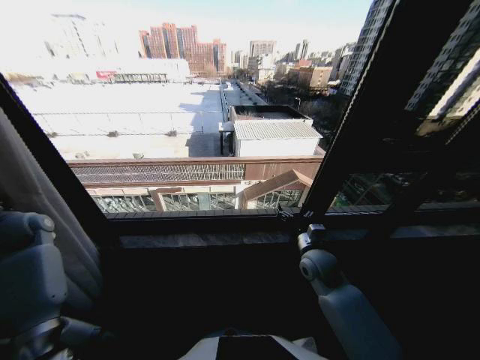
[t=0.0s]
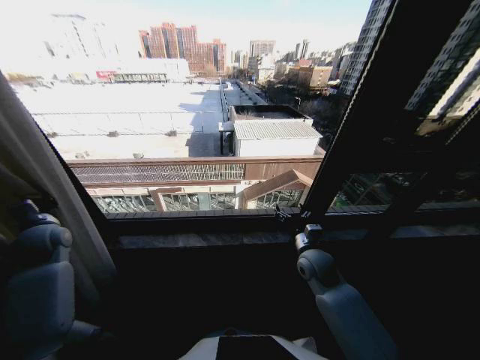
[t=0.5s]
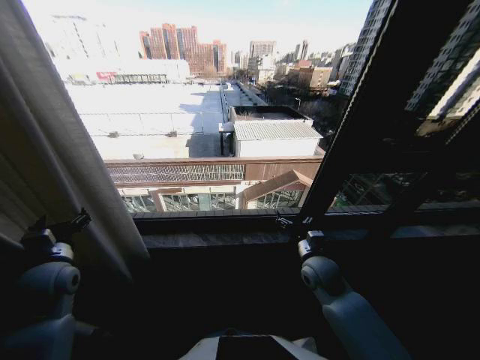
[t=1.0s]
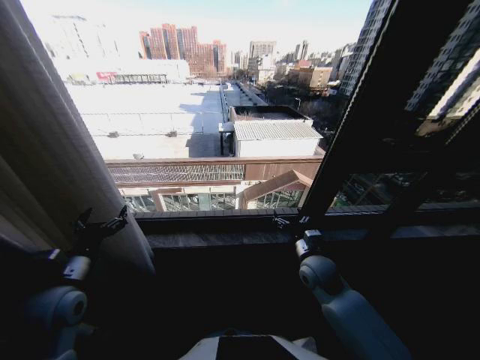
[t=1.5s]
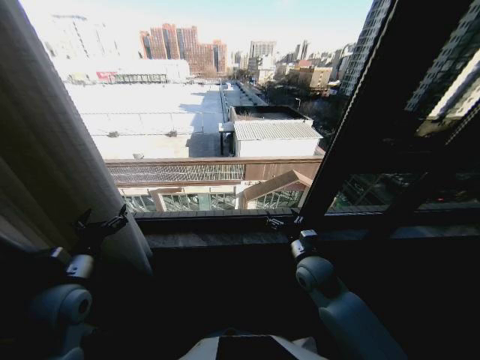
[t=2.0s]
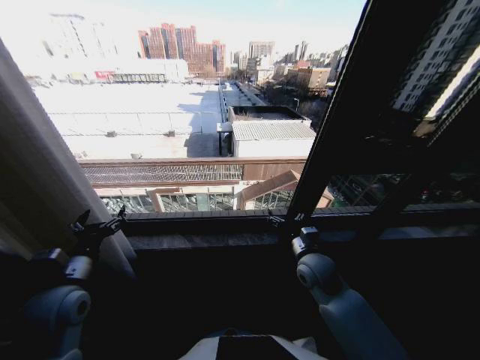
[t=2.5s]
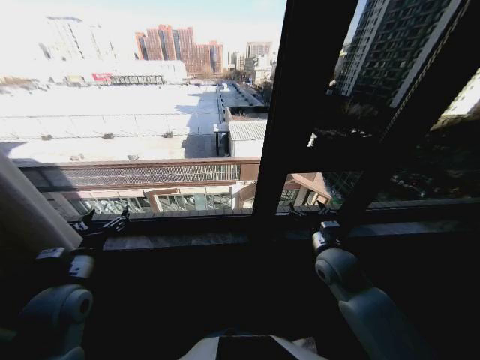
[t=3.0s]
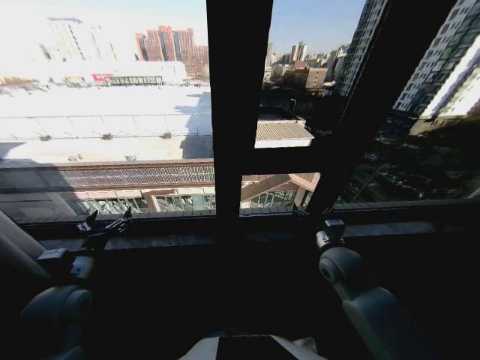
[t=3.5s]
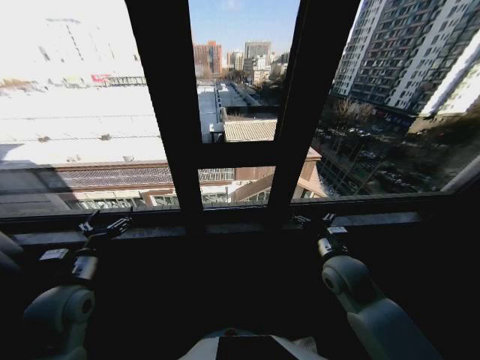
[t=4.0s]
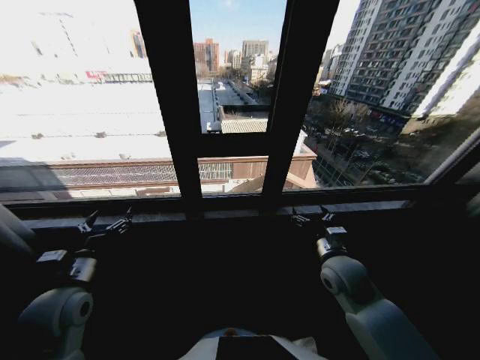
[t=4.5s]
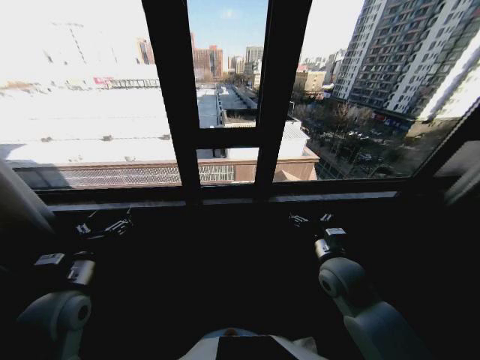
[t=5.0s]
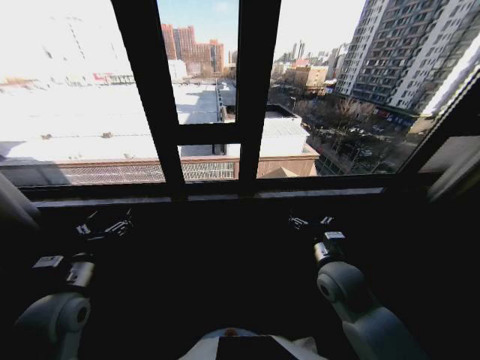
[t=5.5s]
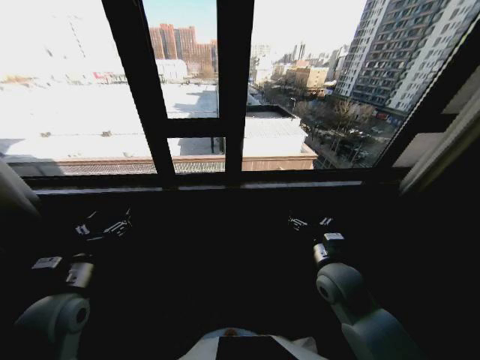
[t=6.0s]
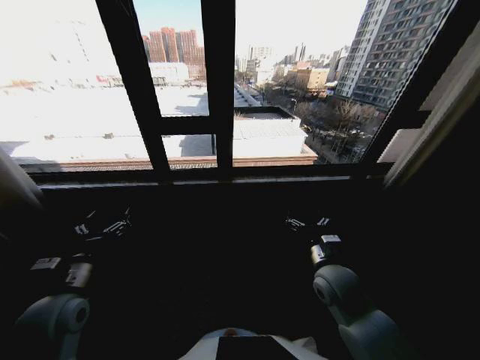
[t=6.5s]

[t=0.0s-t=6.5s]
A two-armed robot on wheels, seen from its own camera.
Task of the whole recording: Open the curtains by pulling them apart, changing their state from closed to fully open.
t=0.0s to t=2.0s: The left gripper is displaced to the right and backward by about 30 cm, and opens.
t=2.0s to t=4.5s: The right gripper shifts by approximately 5 cm.

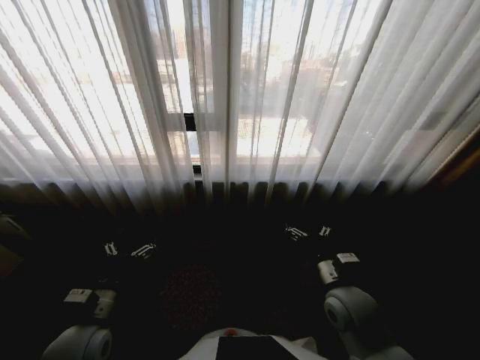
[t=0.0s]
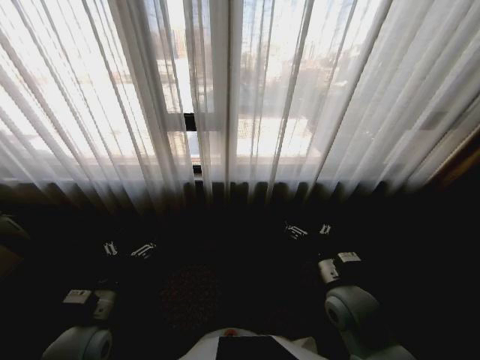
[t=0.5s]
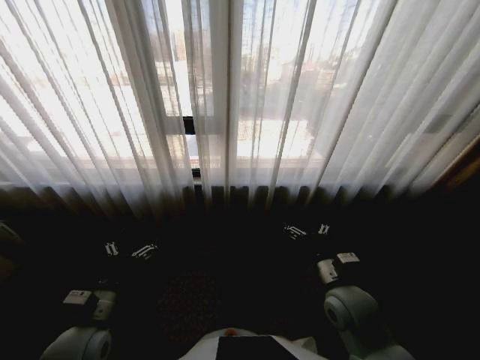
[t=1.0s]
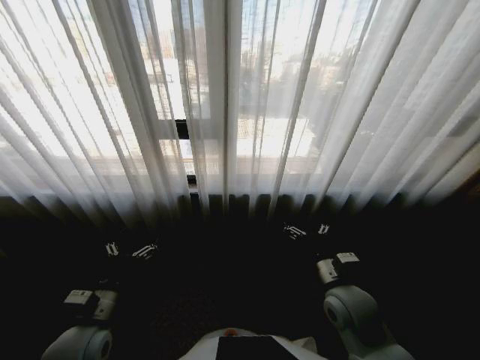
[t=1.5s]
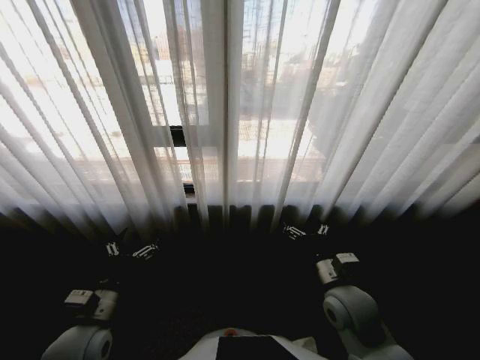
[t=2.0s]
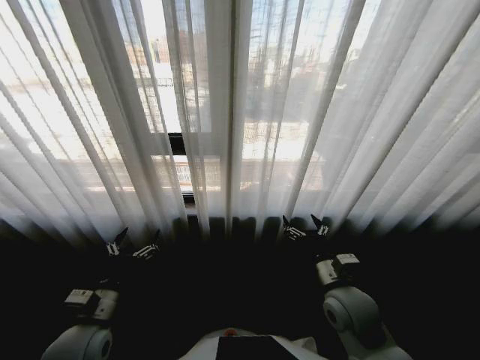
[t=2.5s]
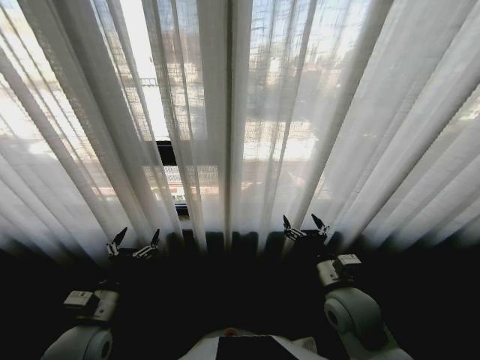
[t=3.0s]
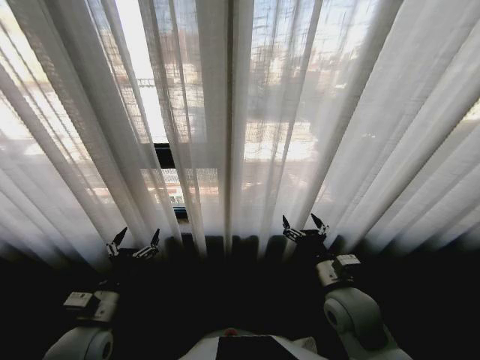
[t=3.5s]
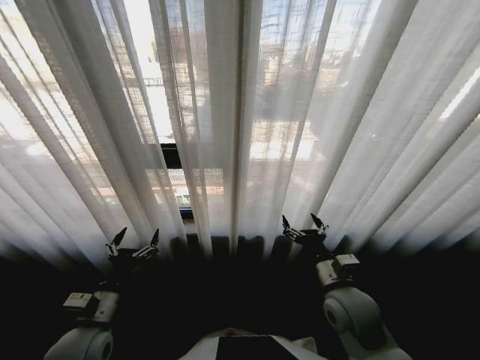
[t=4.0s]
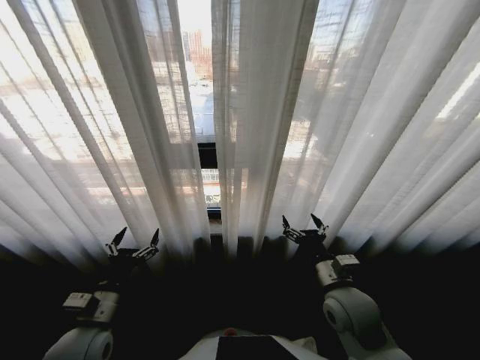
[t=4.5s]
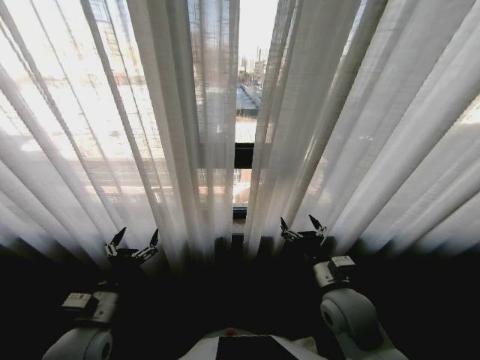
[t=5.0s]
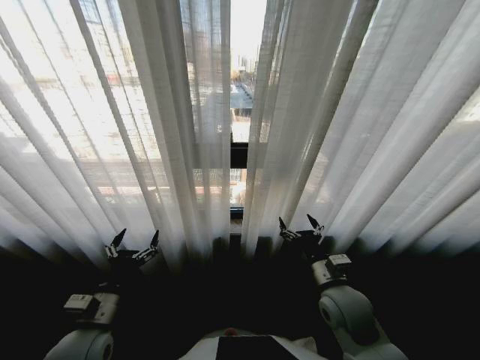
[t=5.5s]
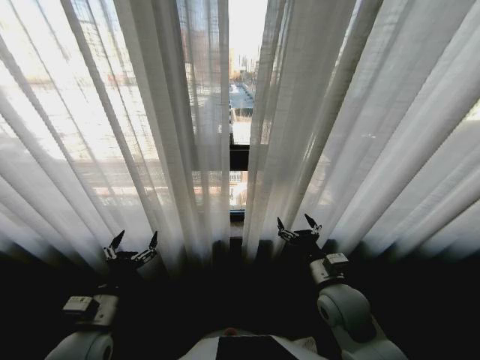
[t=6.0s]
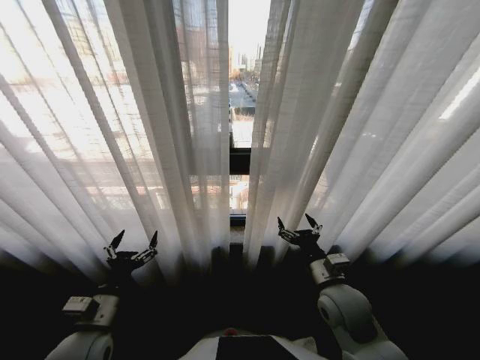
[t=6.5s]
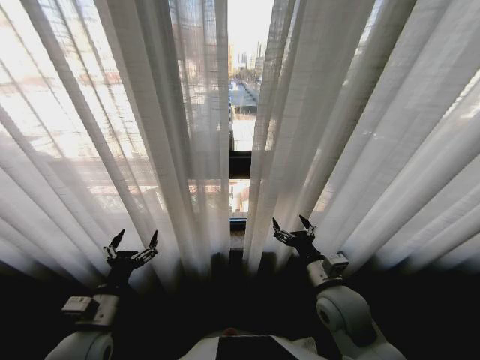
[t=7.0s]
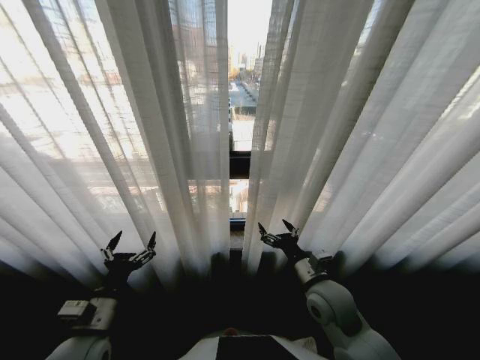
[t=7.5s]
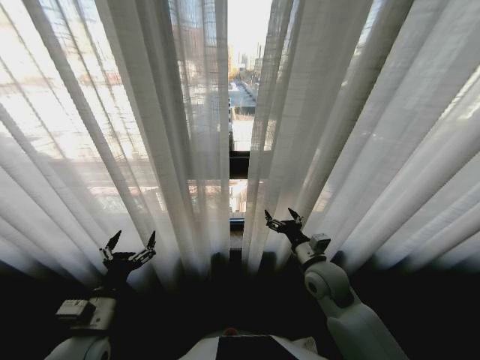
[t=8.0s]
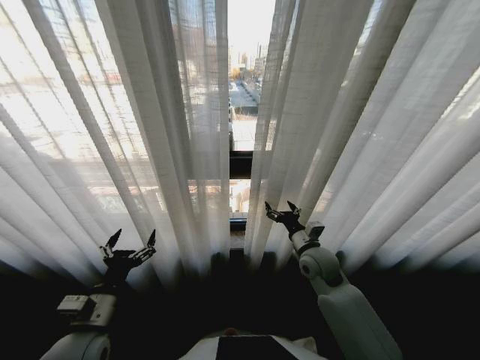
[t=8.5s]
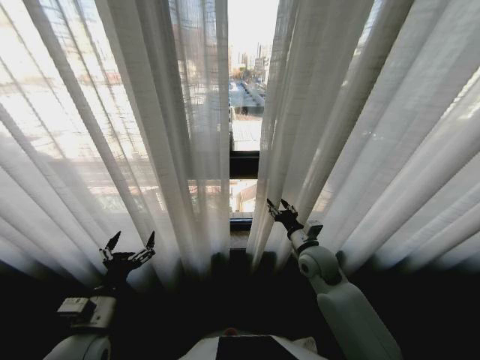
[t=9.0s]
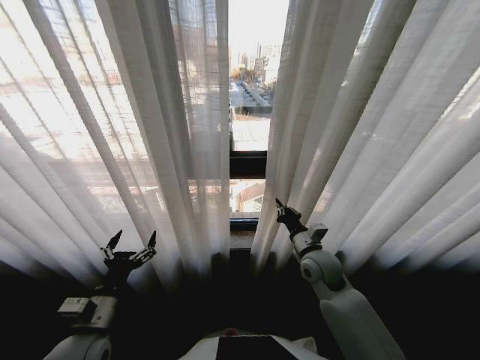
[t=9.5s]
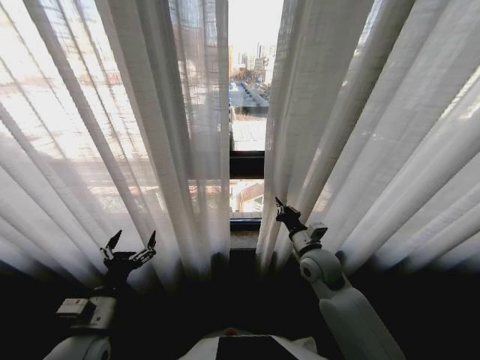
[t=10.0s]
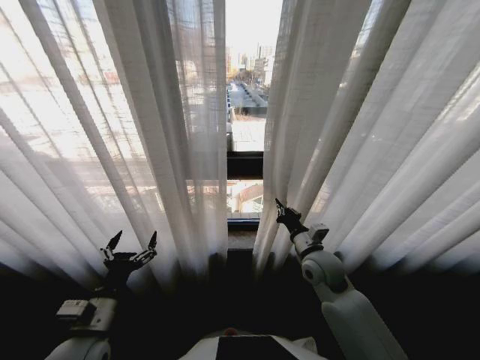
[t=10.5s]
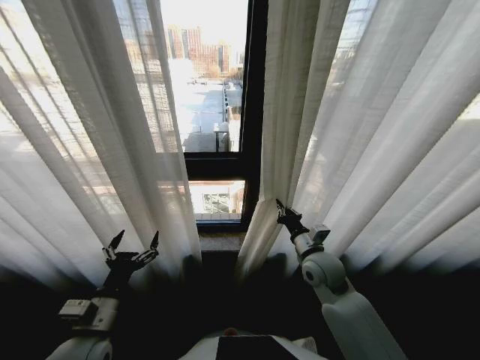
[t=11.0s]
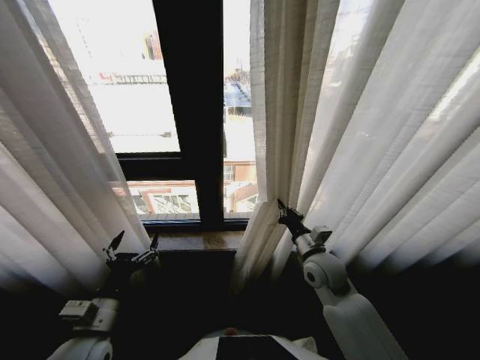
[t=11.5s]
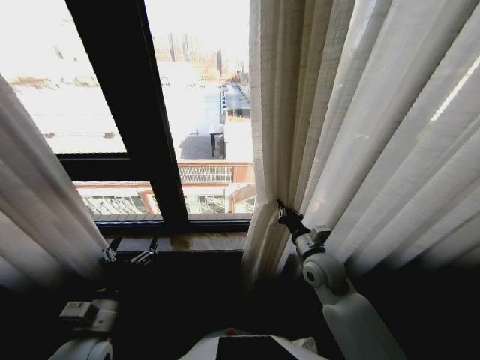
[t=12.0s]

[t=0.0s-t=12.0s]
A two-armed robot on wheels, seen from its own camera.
Task of the whole recording: Open the curtains by pulling them apart, changing their state from closed to fully open.
t=6.0s to t=8.0s: The right gripper goes some 5 cm forward.
t=8.0s to t=10.0s: The right gripper closes up.

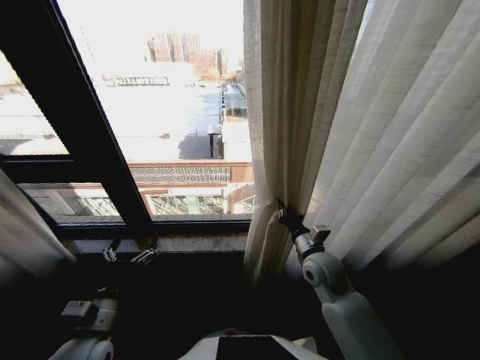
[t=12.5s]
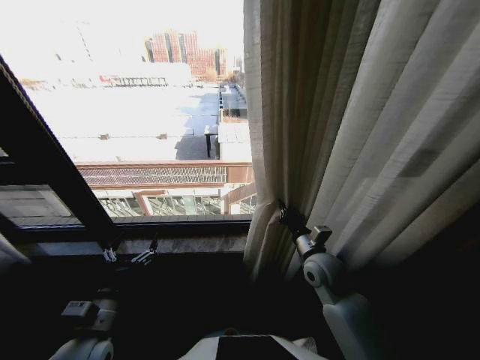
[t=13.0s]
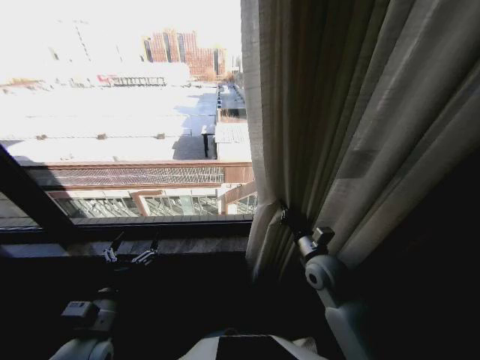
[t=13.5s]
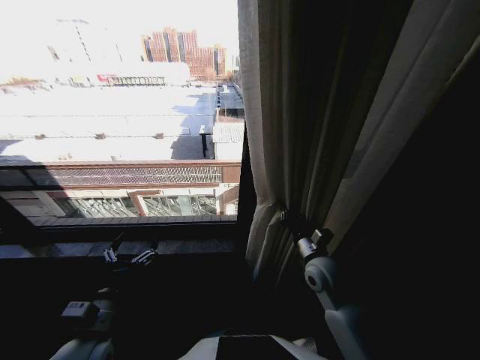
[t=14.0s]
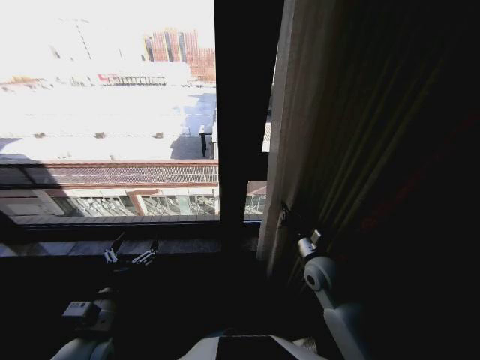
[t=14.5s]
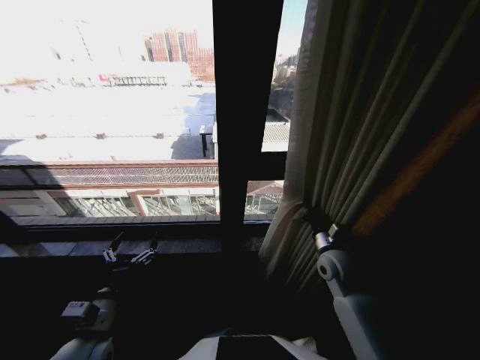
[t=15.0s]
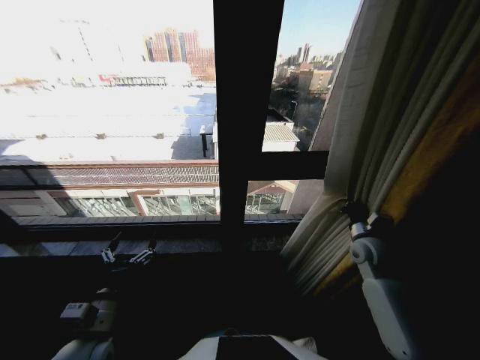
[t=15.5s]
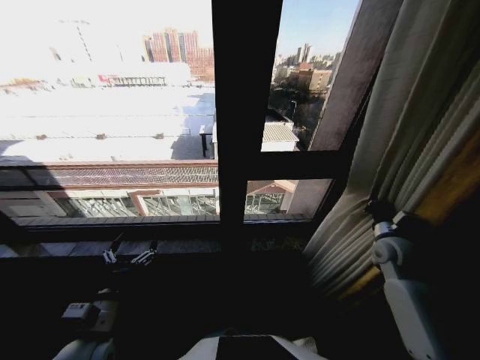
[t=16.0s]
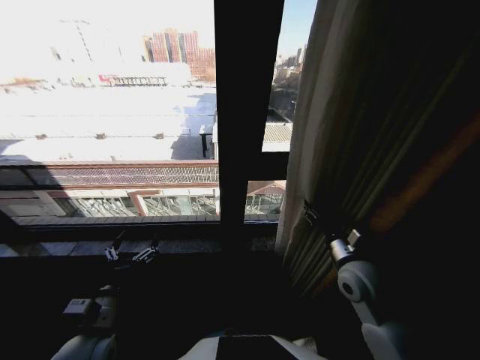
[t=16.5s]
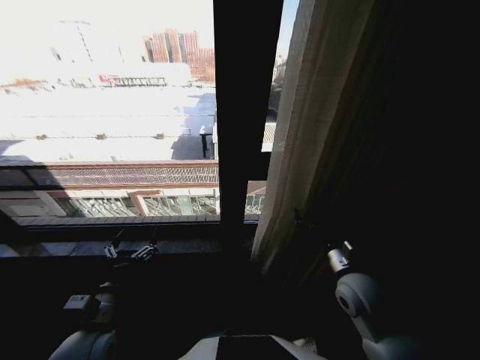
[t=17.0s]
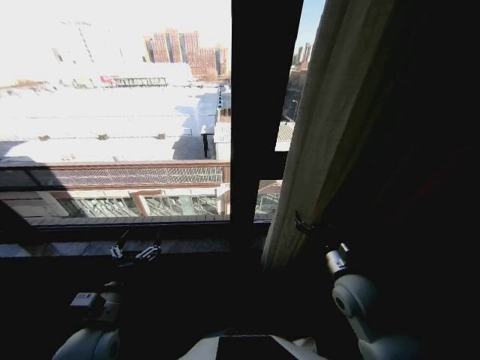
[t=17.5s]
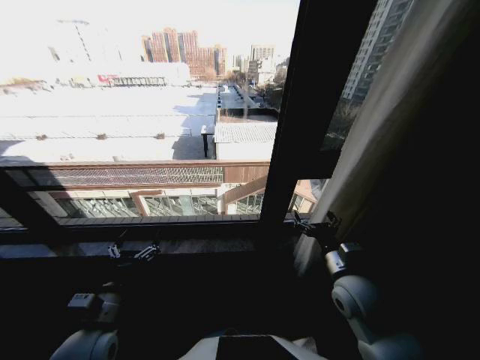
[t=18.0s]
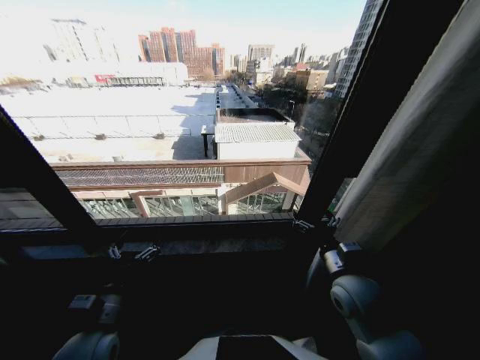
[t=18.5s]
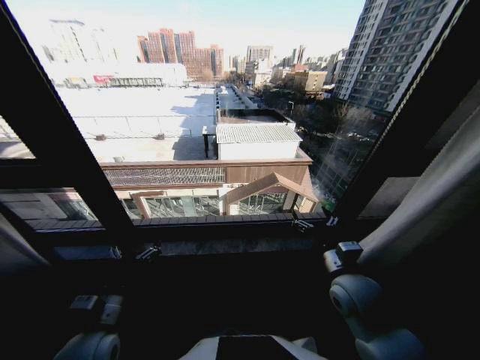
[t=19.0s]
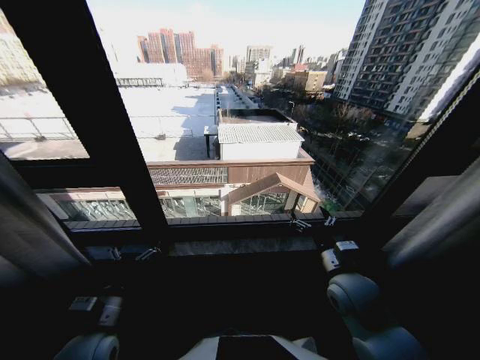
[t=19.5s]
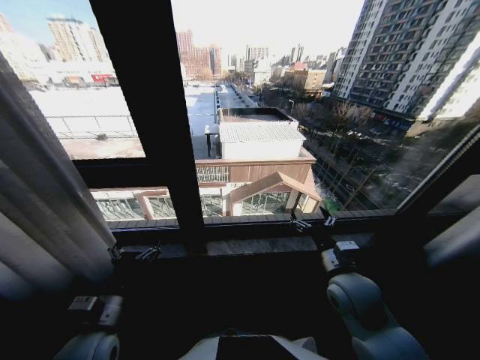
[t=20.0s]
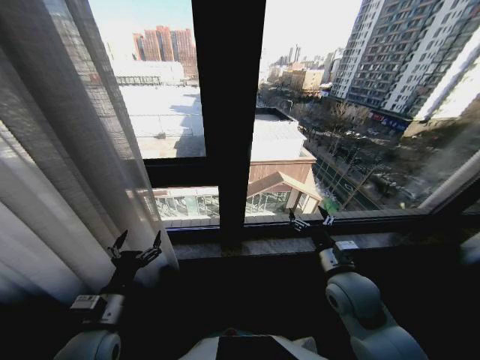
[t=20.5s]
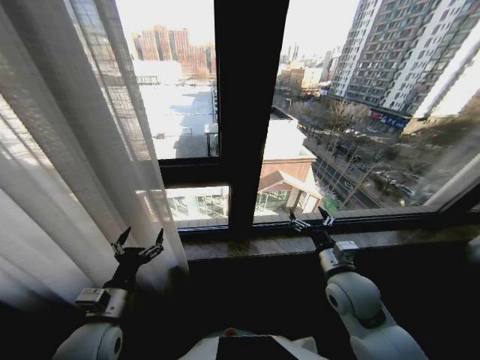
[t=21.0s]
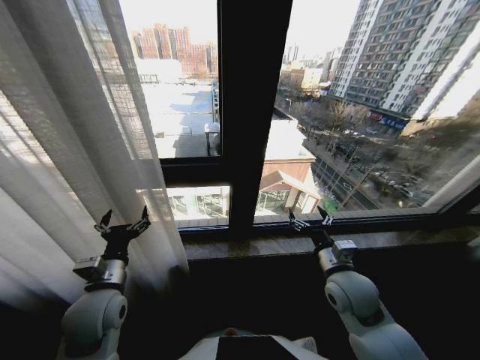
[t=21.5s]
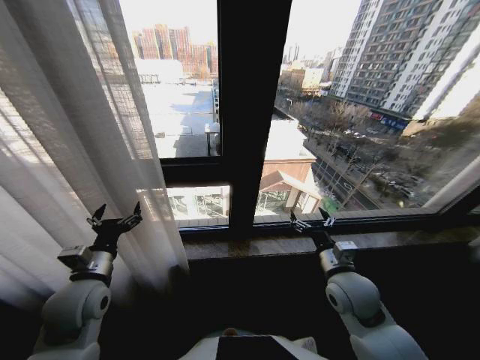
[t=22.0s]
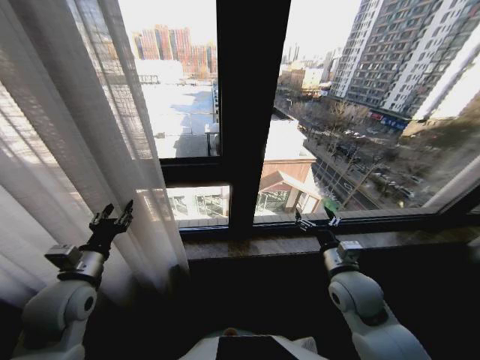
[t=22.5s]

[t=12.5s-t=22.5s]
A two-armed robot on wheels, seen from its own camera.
Task of the whole recording: Open the curtains by pulling them apart, changing their state from closed to fully open.
t=14.5s to t=16.5s: The right gripper moves upward, approximately 5 cm, goes to the right and returns, about 20 cm each way, and opens up.
t=16.5s to t=18.5s: The right gripper opens its fingers.
t=20.5s to t=22.5s: The left gripper travels forward, to the left and upward by some 10 cm, and closes.
